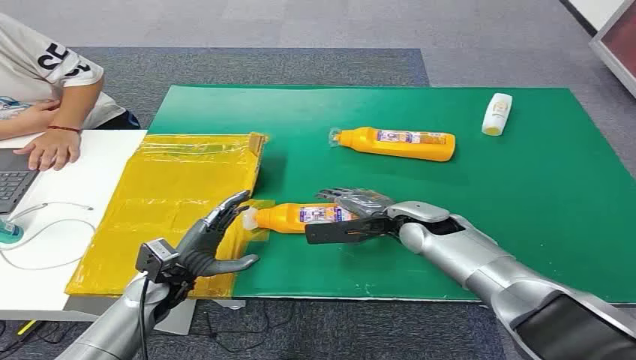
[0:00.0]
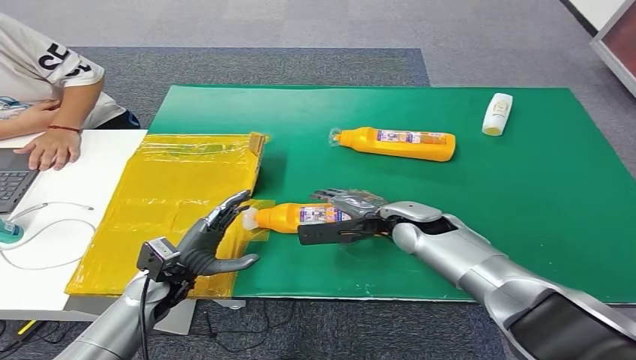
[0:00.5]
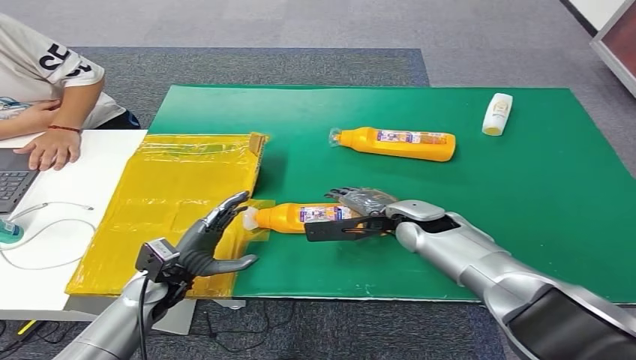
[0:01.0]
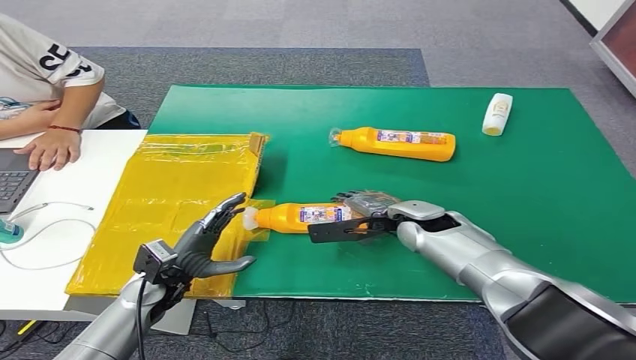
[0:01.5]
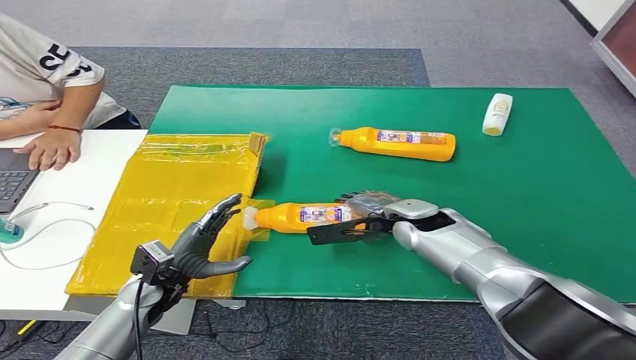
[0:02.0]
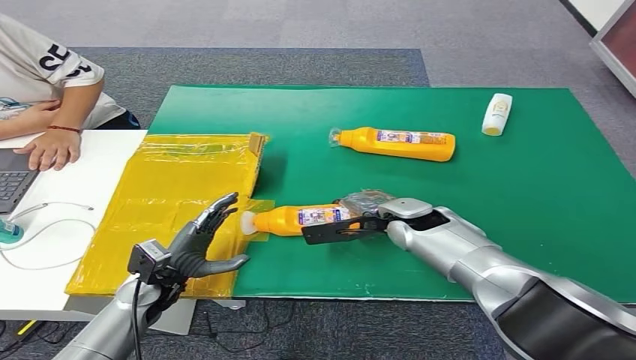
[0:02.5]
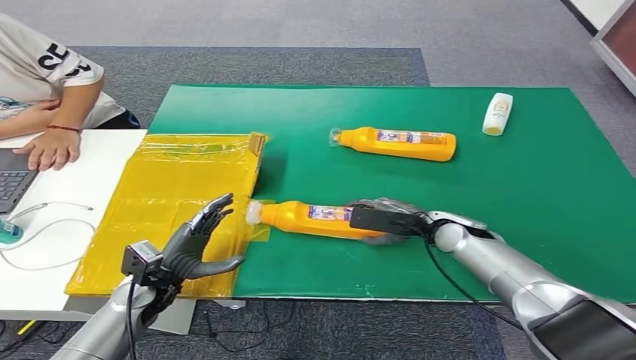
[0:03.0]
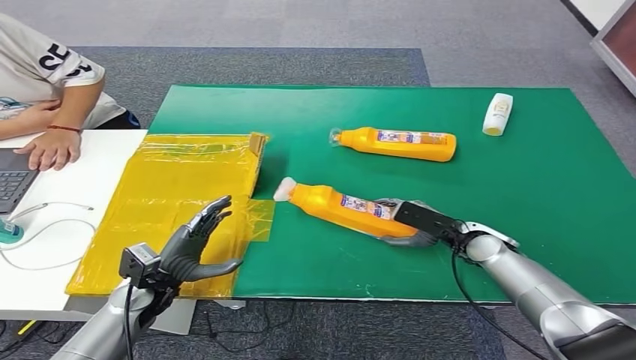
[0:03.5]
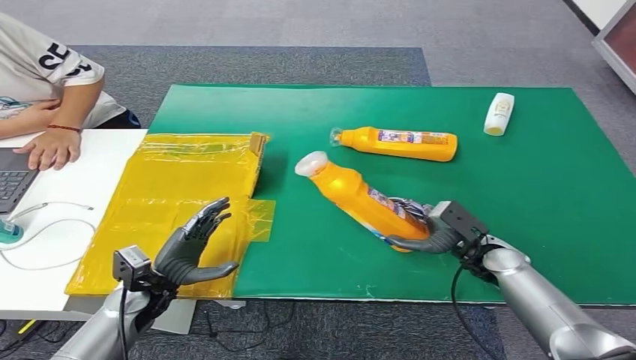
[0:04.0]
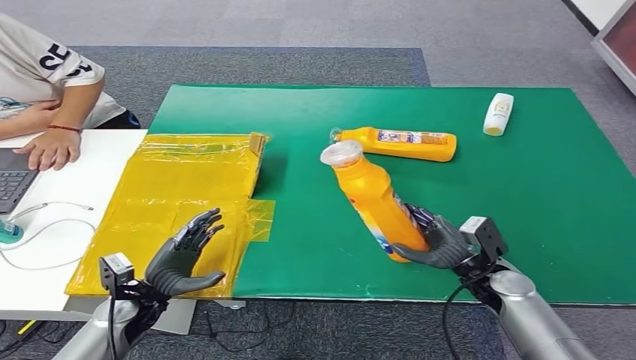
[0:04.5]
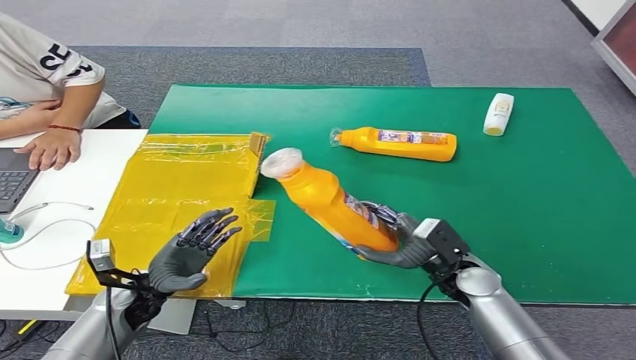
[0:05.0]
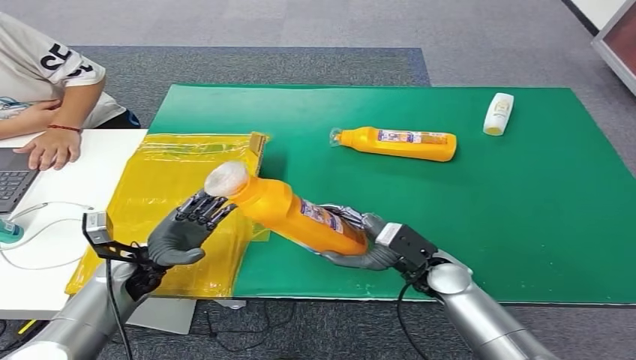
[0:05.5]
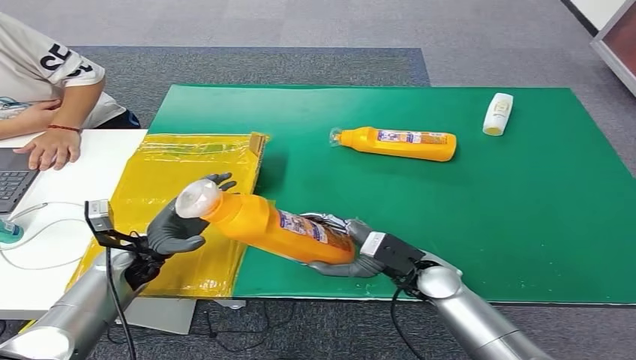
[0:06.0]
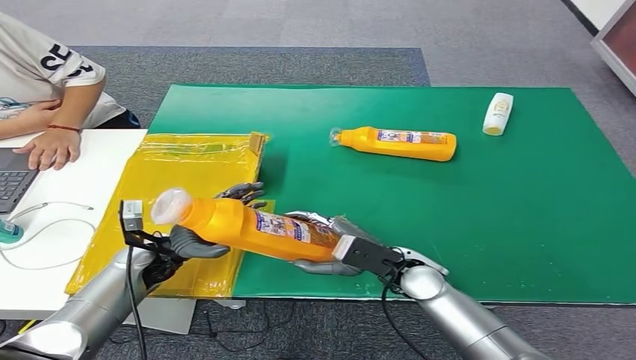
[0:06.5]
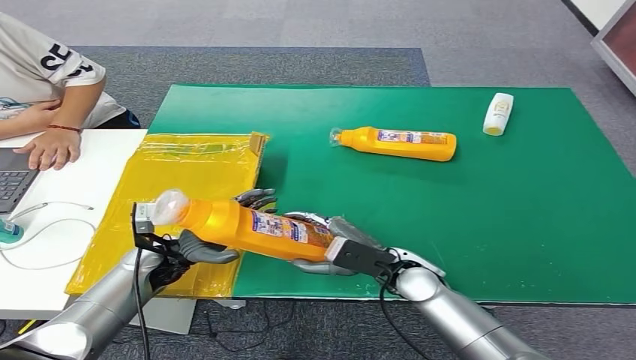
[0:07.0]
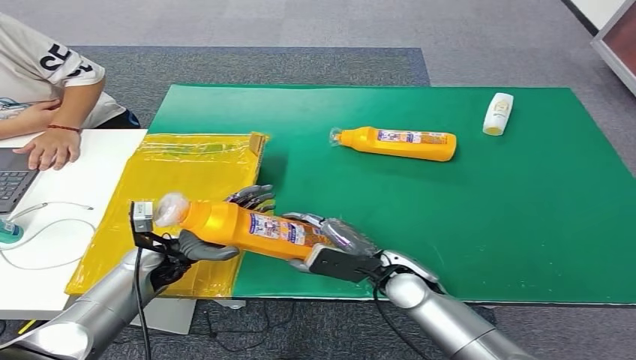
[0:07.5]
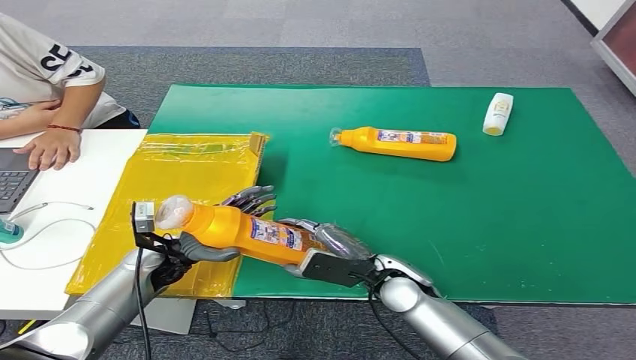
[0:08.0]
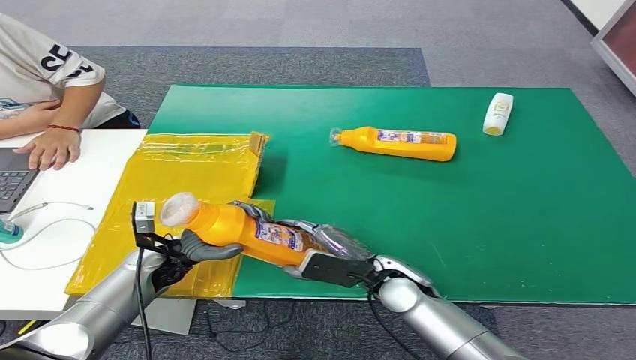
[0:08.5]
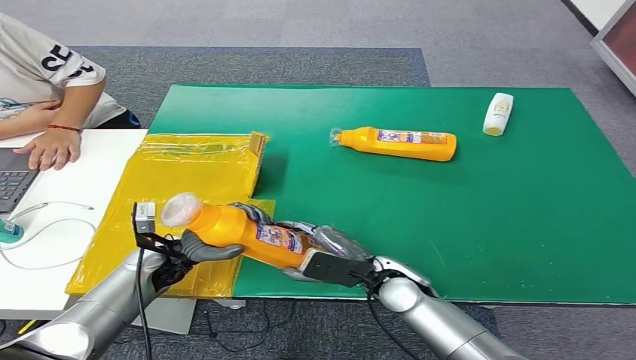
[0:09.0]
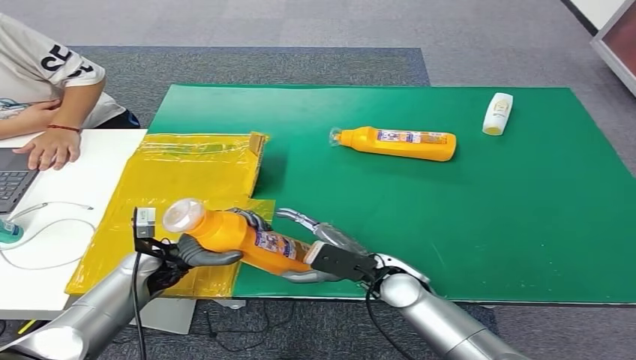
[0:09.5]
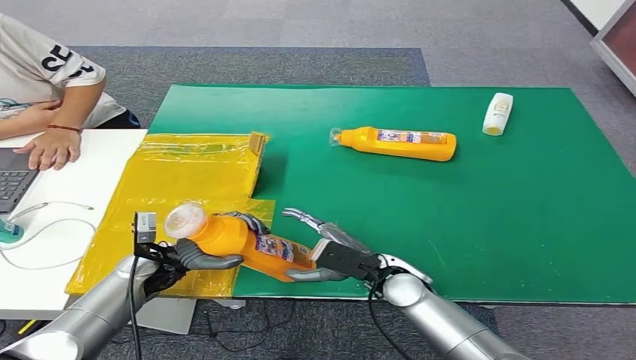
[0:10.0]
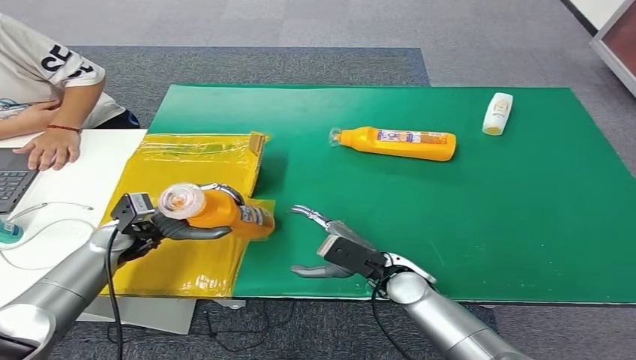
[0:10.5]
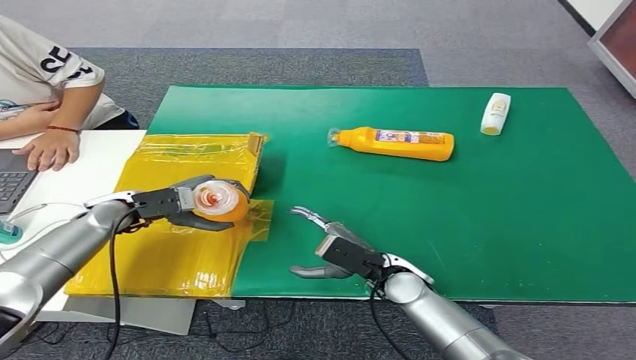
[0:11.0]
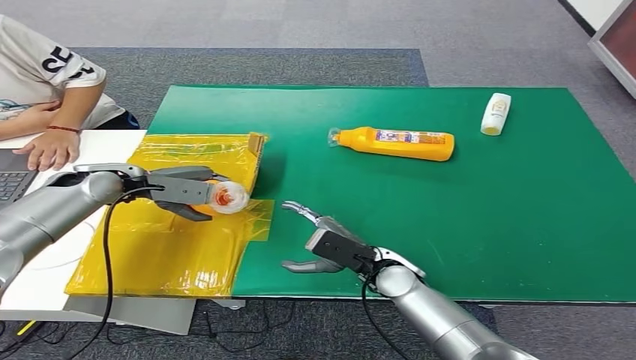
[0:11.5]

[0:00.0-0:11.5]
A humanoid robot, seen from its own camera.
Step, 0:00.0 to 0:04.5: Pick up the bottle from the table.
0:02.0 to 0:04.0: The right hand is displaced to the right, downward and backward by some 15 cm.
0:04.0 to 0:06.0: The right hand shifts roughly 15 cm to the left, while the left hand is displaced forward by roughly 5 cm.
0:07.5 to 0:09.5: The hands move only a little.
0:09.5 to 0:11.5: The left hand travels upward, forward and to the left by roughly 20 cm.

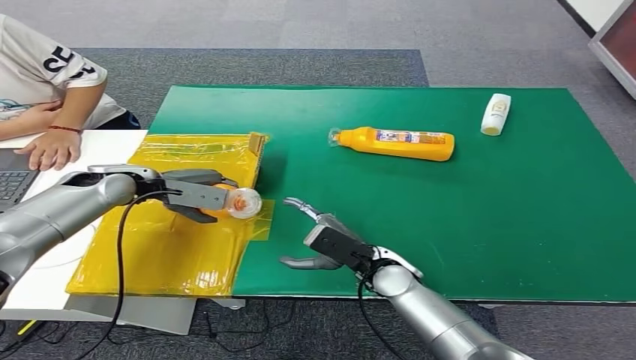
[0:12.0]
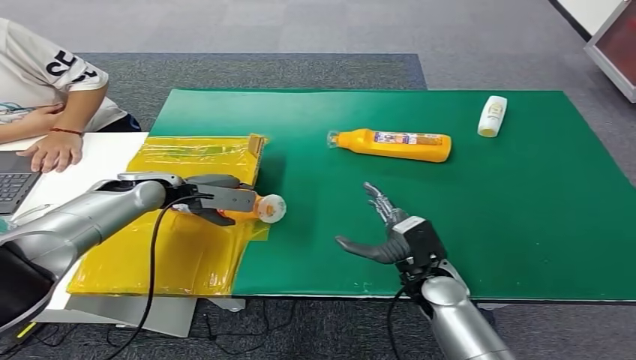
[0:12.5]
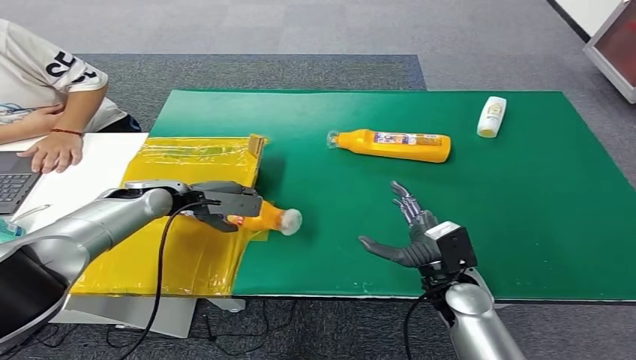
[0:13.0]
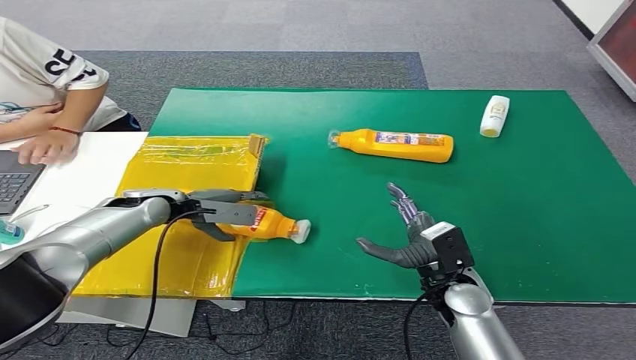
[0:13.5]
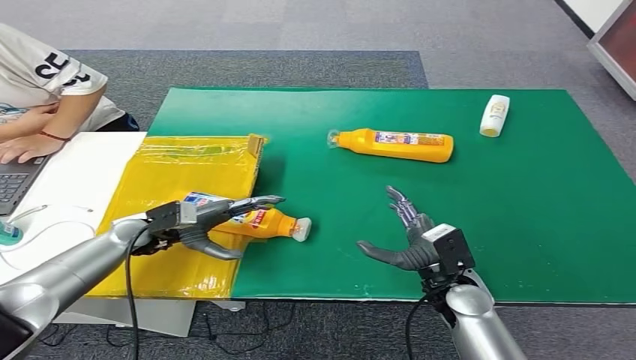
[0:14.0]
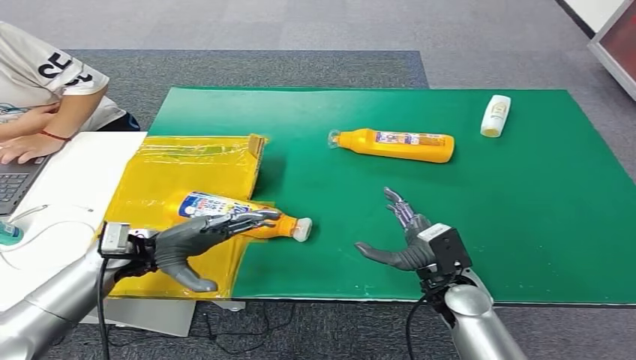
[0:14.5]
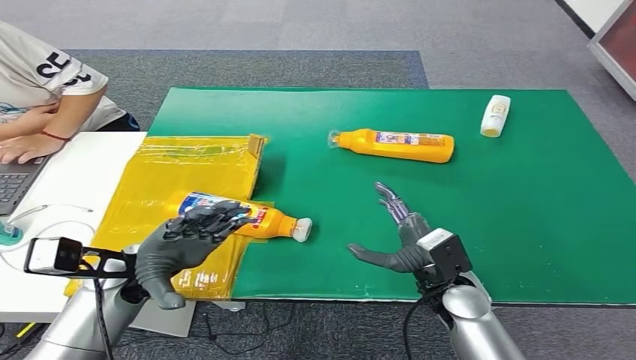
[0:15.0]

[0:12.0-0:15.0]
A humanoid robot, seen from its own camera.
Step, 0:12.0 to 0:15.0: Turn the bottle to the front side.
0:13.5 to 0:15.0: The left hand heads backward, covering some 15 cm.

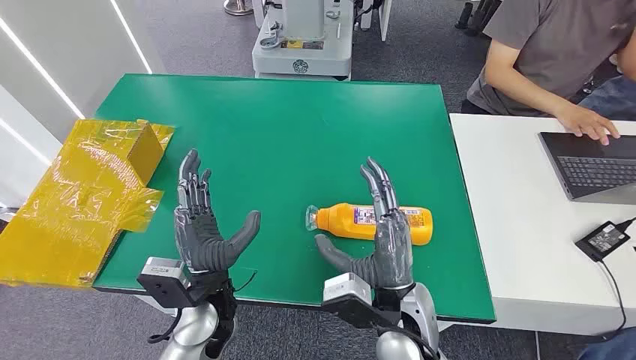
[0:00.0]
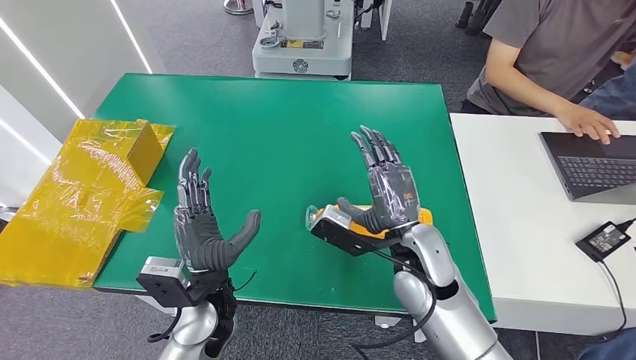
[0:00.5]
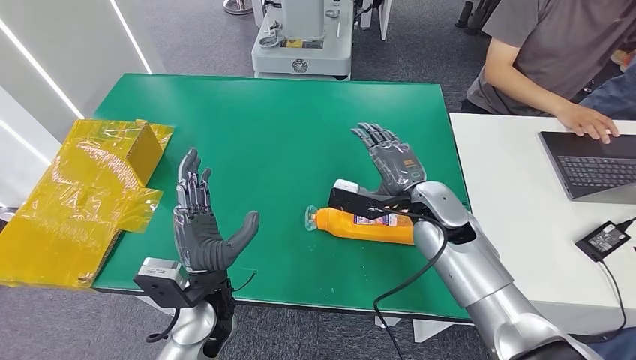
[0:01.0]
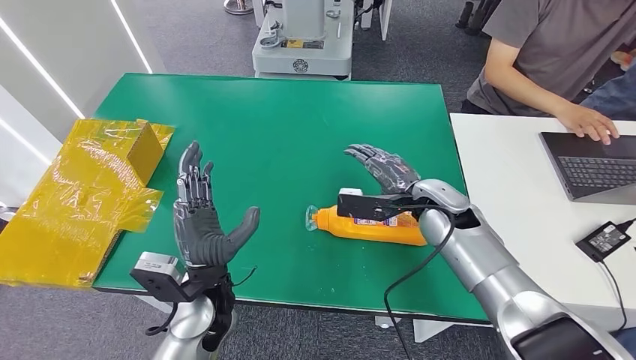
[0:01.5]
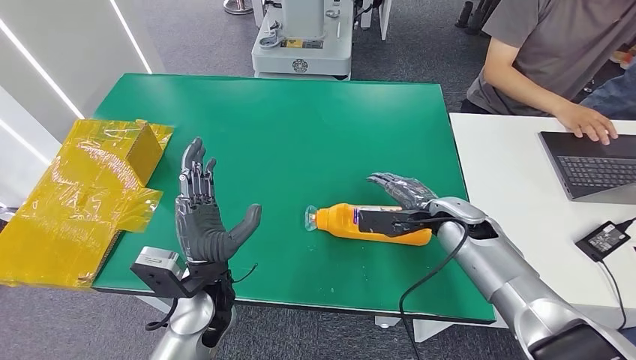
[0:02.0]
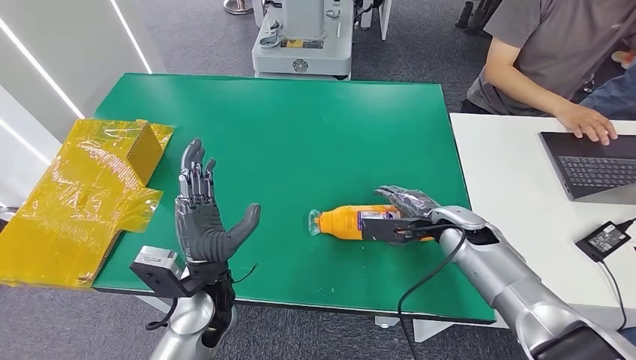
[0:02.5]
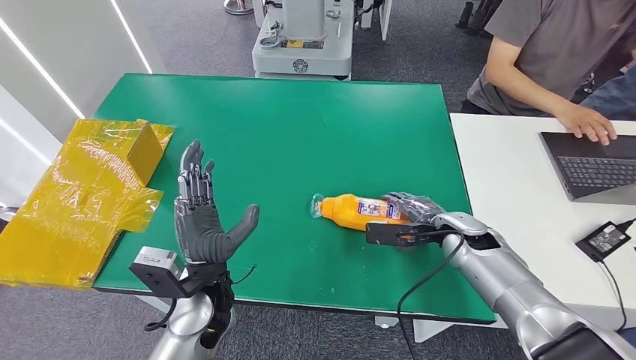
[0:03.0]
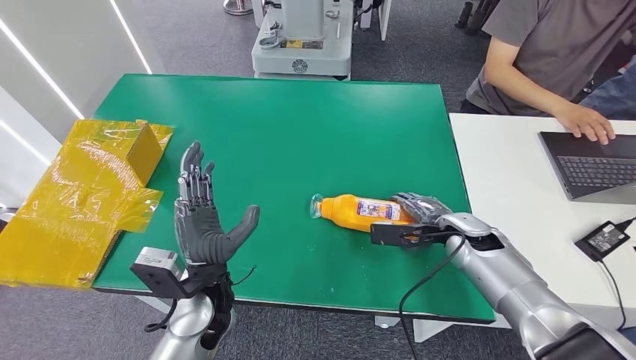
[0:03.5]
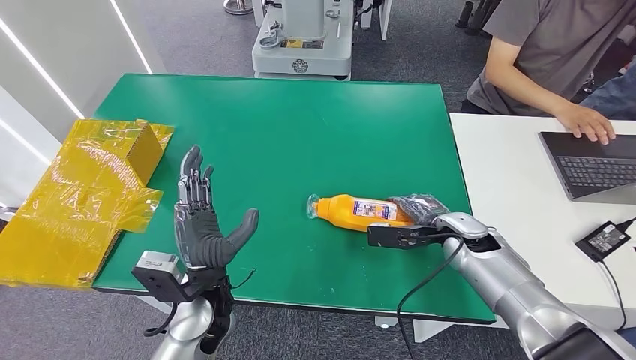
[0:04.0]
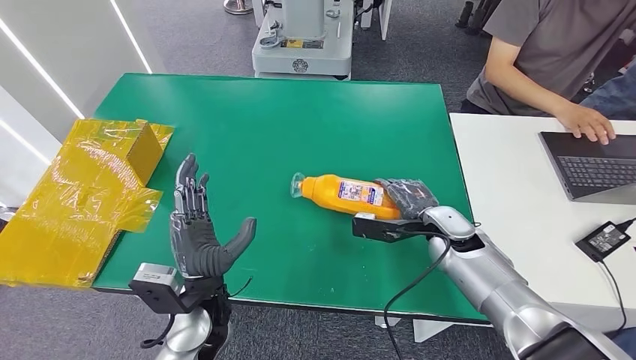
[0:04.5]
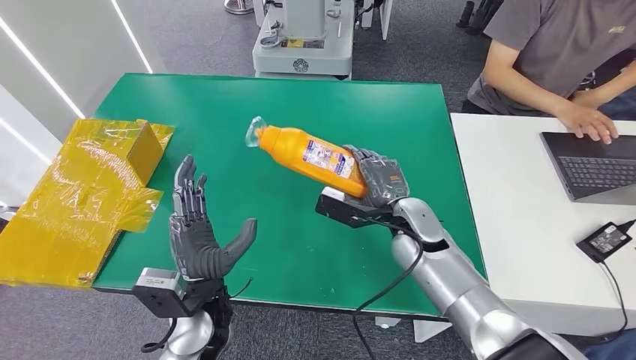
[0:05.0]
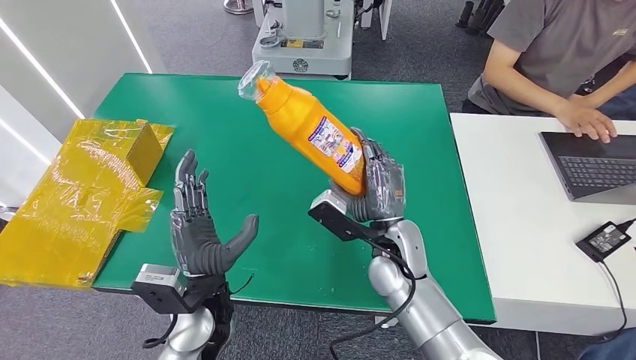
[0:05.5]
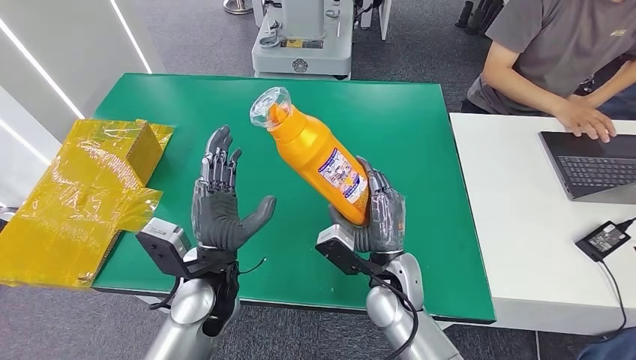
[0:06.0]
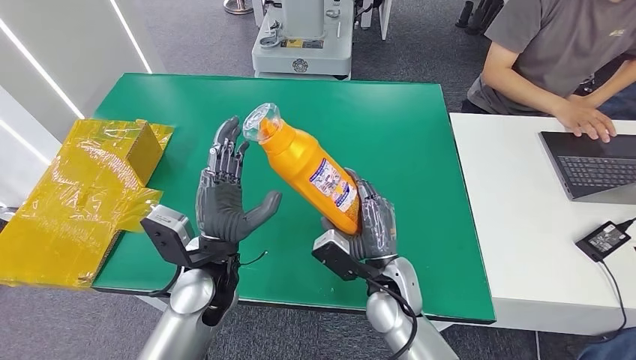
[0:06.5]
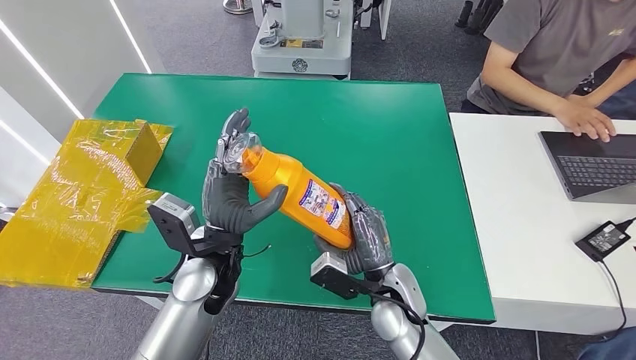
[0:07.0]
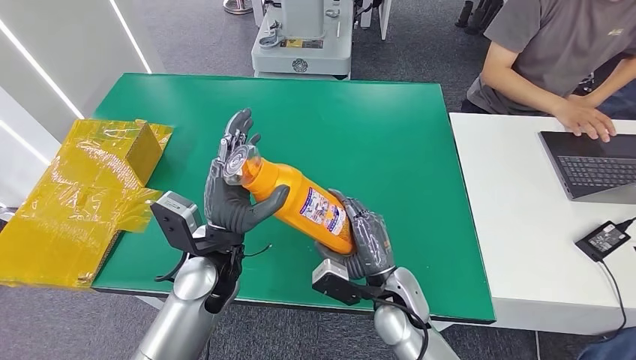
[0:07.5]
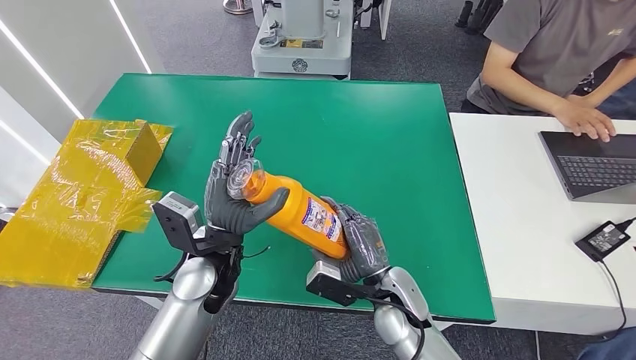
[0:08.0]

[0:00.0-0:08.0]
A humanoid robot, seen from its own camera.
Step, 0:00.0 to 0:05.0: Pick up the bottle from the table.
0:02.0 to 0:04.0: The hands make only small movements.
